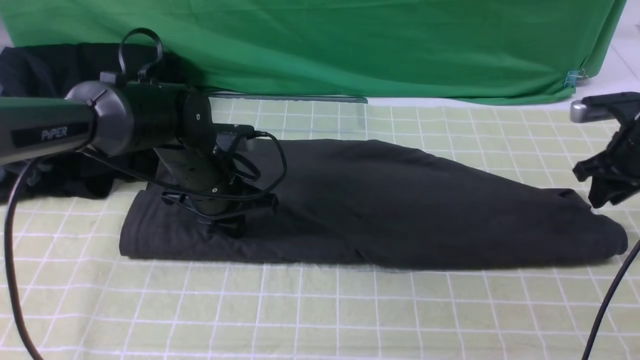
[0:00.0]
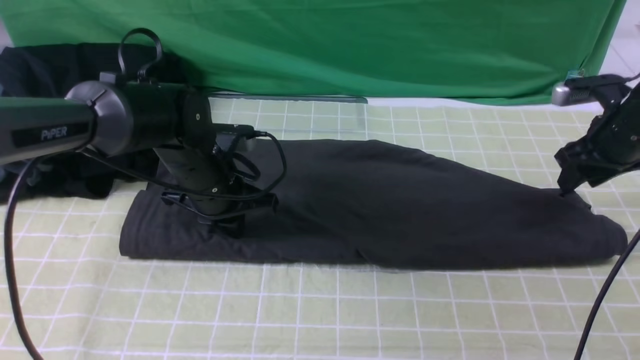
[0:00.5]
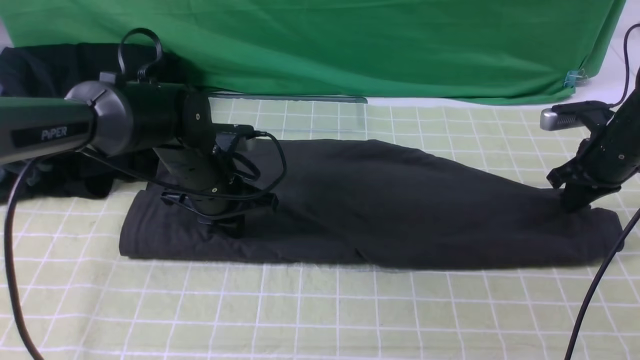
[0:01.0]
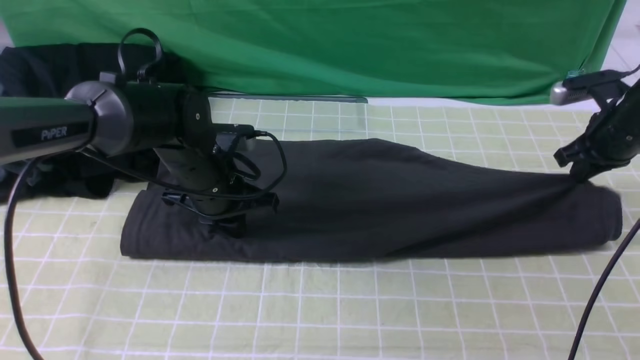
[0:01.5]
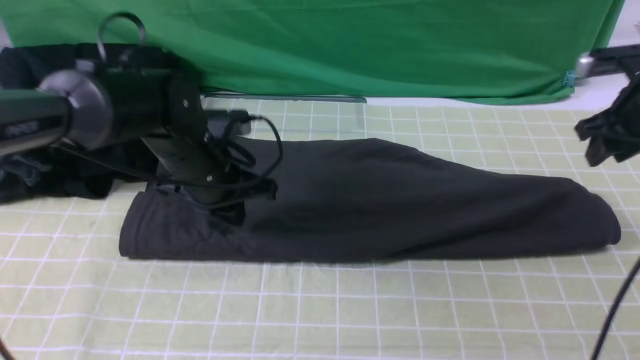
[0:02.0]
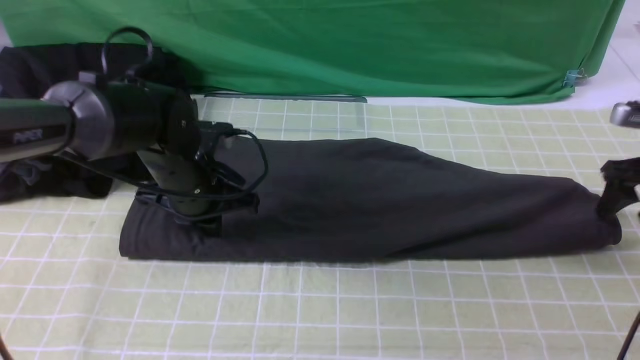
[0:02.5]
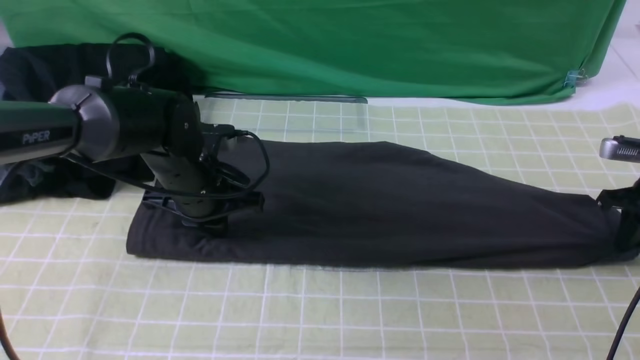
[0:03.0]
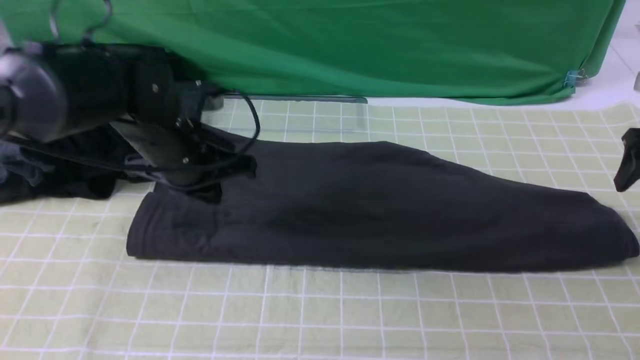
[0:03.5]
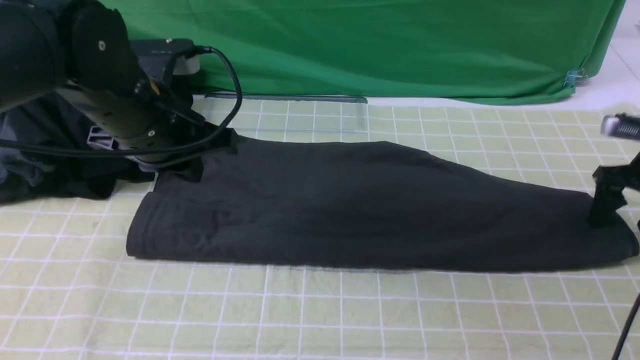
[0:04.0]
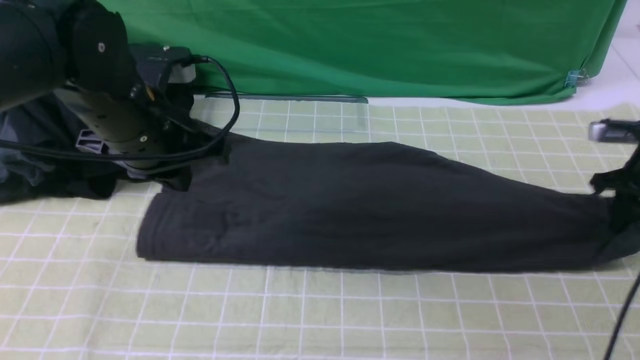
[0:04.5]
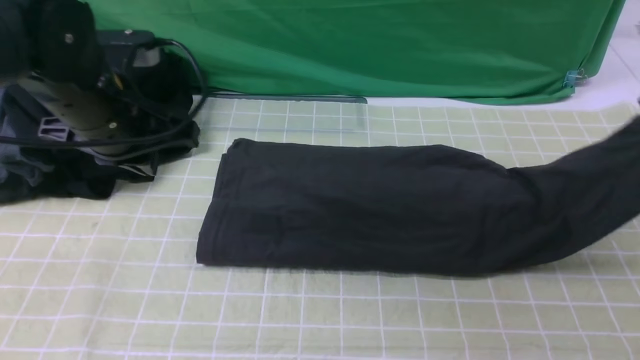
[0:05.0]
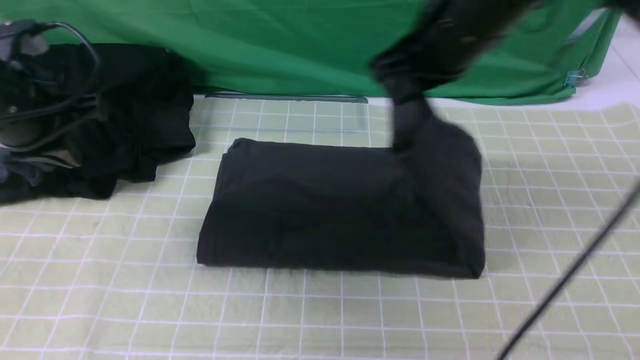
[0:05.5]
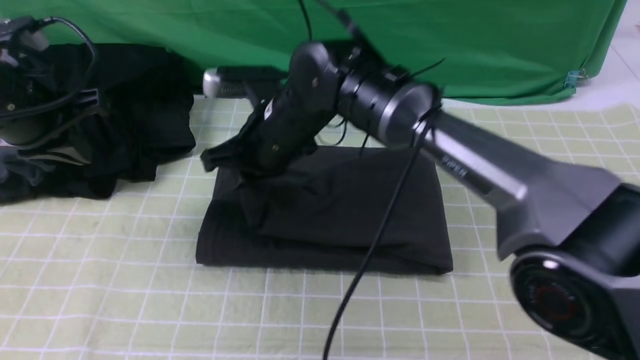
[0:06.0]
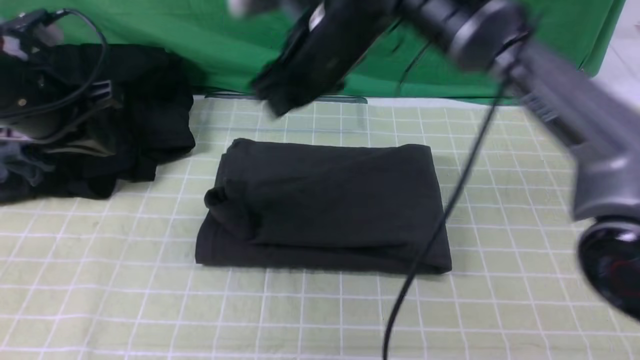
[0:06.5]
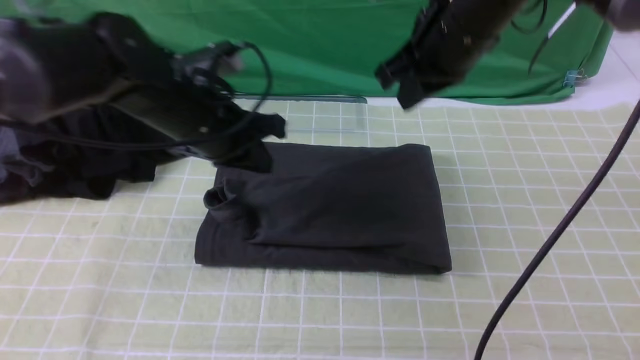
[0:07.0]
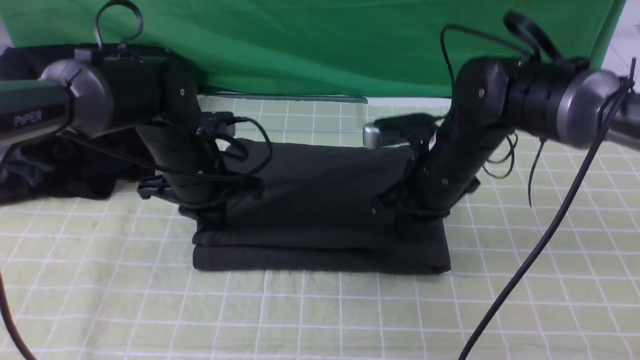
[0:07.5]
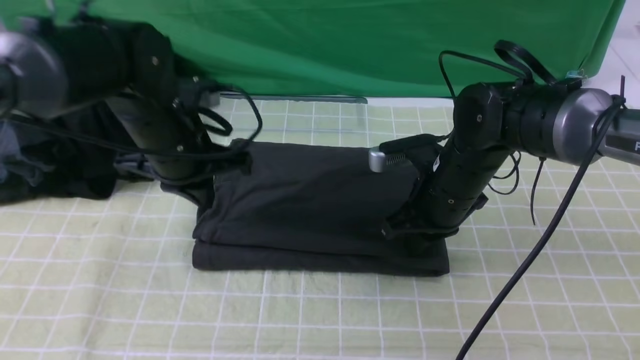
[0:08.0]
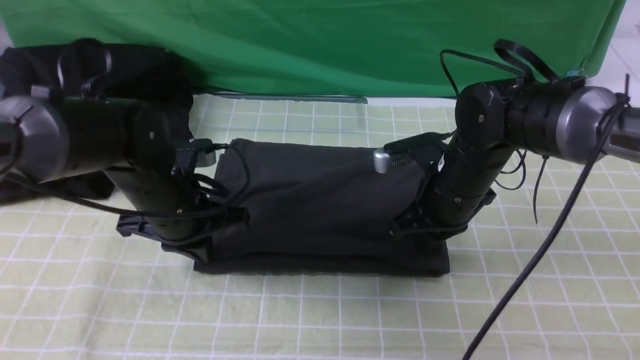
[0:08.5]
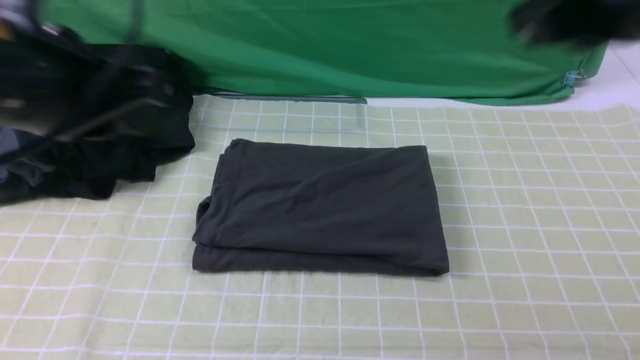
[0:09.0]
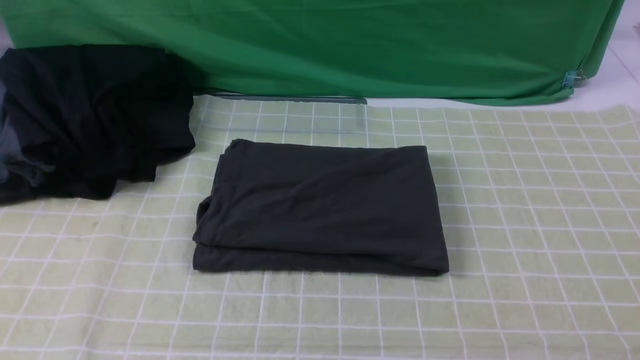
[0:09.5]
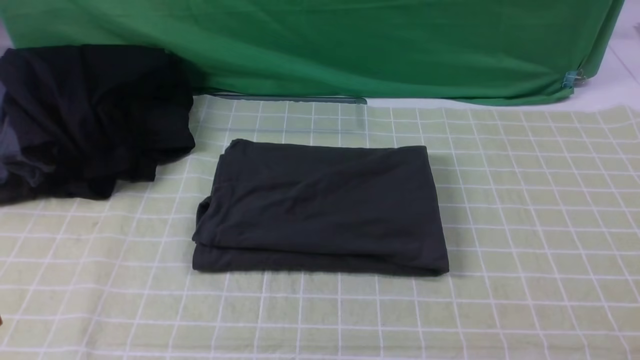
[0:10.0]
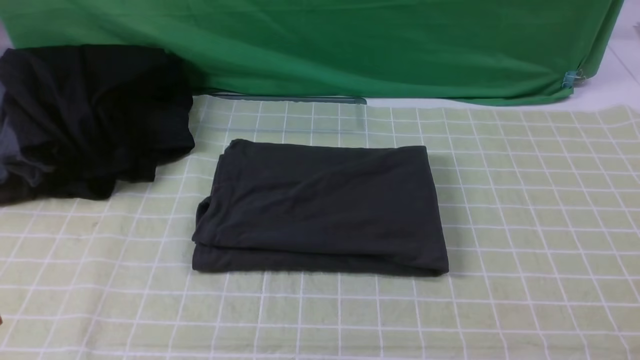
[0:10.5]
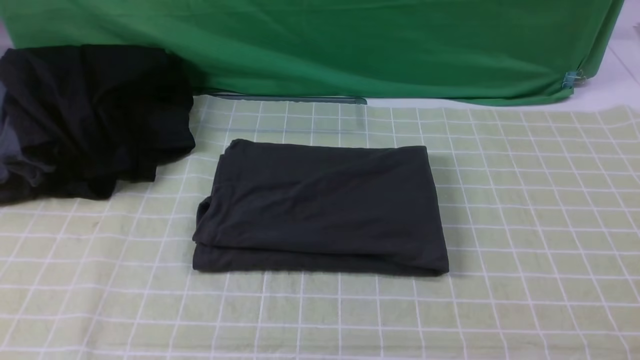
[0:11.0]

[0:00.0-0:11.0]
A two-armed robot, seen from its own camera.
Step, 0:00.0 to 0:04.0: use the right arm to clamp the right edge of the fabric.
Step, 0:04.5 to 0:06.0: use the right arm to drag the right edge of the fabric to the left and folds it over the left edge.
0:00.0 to 0:02.0: The grippers make only small movements.
0:02.0 to 0:03.5: The right gripper opens.
0:03.5 to 0:05.5: The right gripper shifts roughly 30 cm to the left, and closes. The left gripper is displaced to the left and upward by some 15 cm.
0:05.5 to 0:07.5: The right gripper goes approximately 15 cm downward, goes to the left and returns, roughly 15 cm each way, and opens, then closes again, while the left gripper goes approximately 15 cm to the right and downward.
0:07.5 to 0:09.0: Both grippers travel together upward and backward, approximately 30 cm.
0:09.0 to 0:11.0: The left gripper shifts approximately 20 cm backward and downward. Meanwhile the right gripper goes some 25 cm backward, to the right and downward.

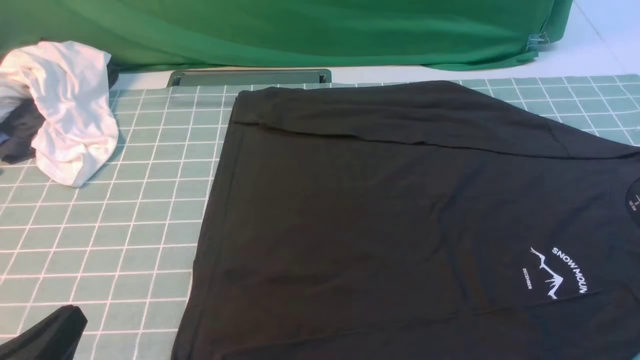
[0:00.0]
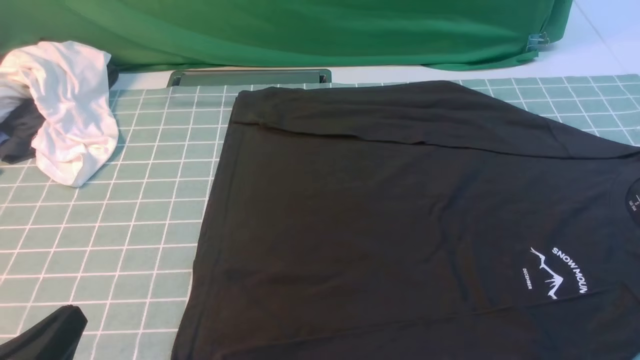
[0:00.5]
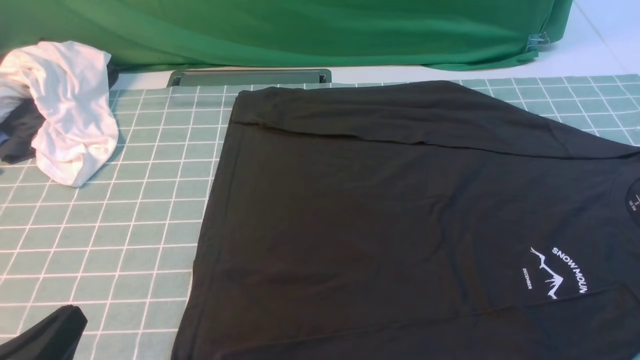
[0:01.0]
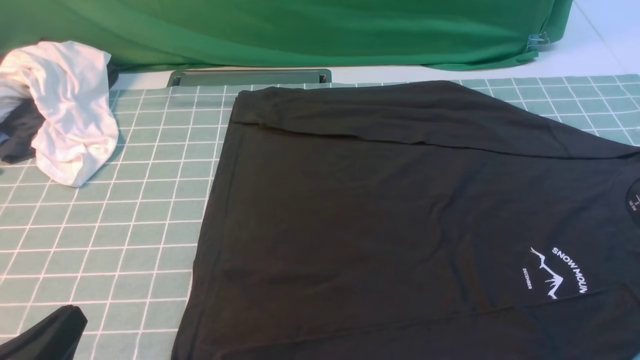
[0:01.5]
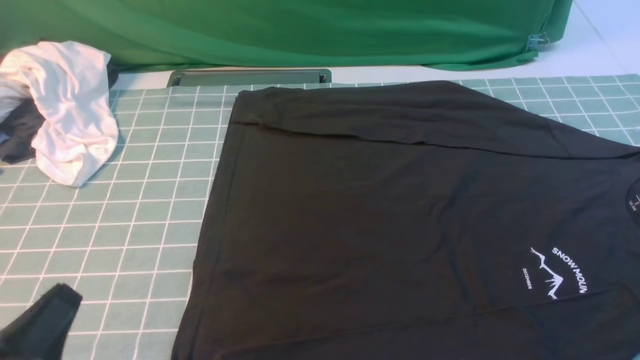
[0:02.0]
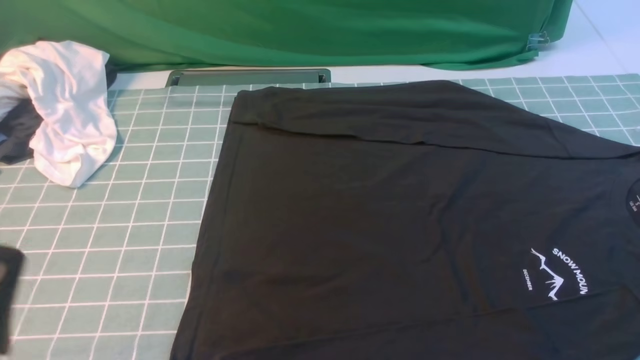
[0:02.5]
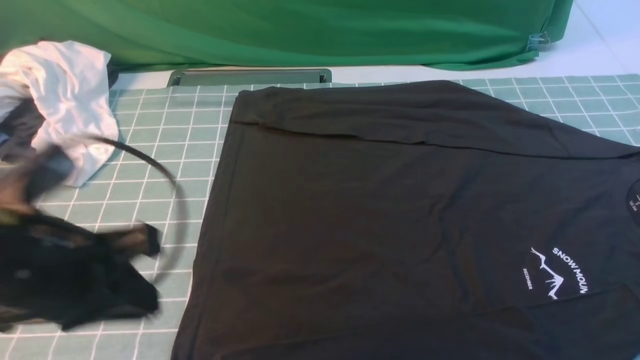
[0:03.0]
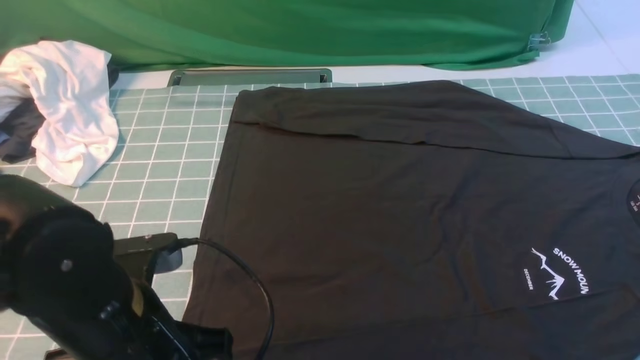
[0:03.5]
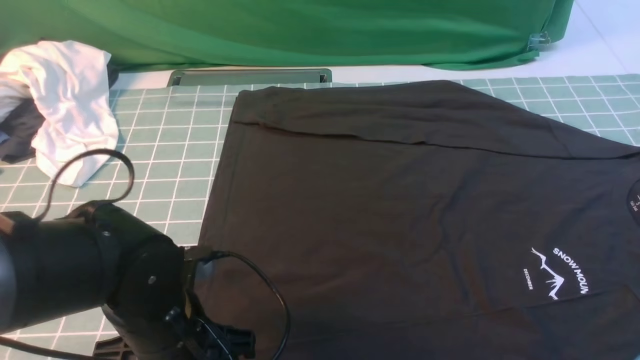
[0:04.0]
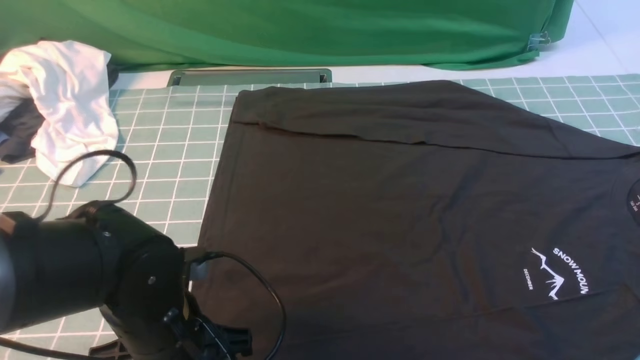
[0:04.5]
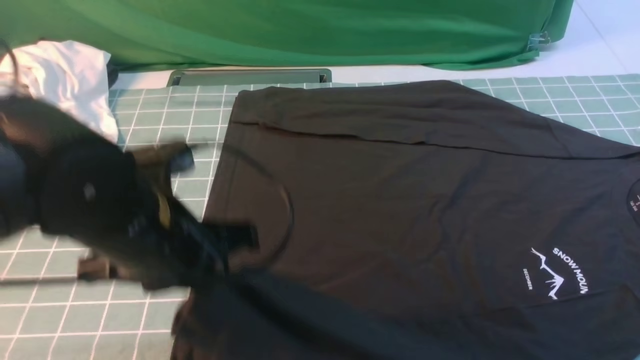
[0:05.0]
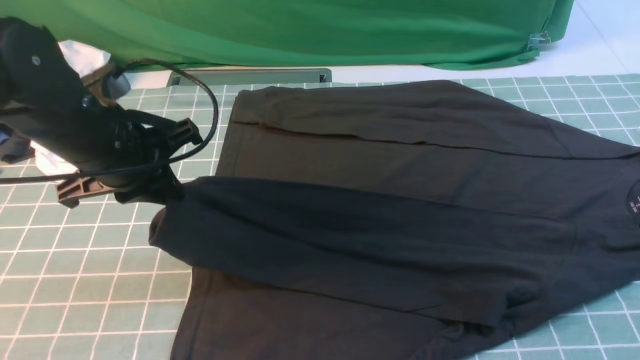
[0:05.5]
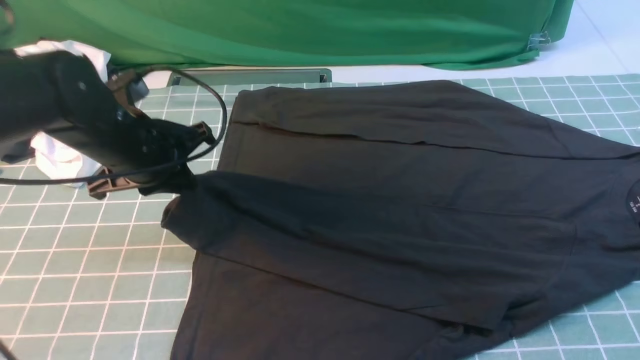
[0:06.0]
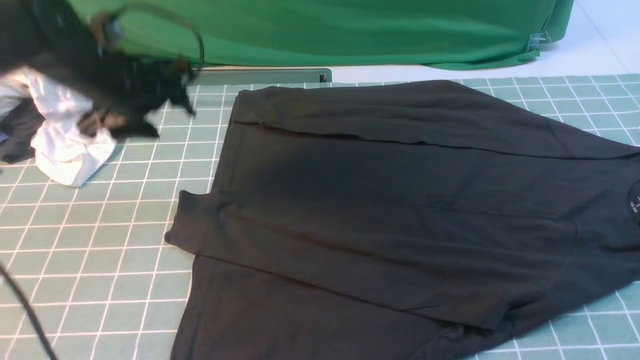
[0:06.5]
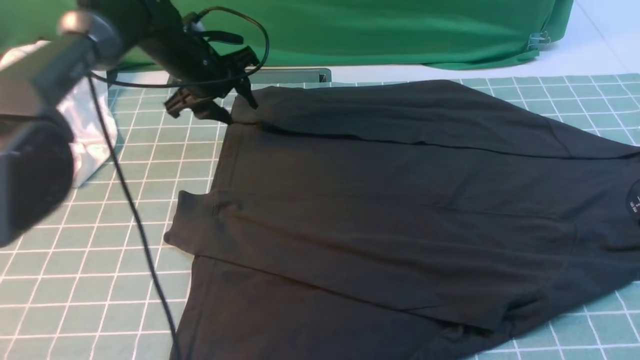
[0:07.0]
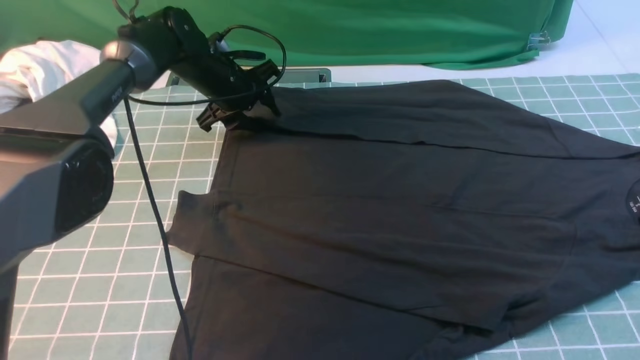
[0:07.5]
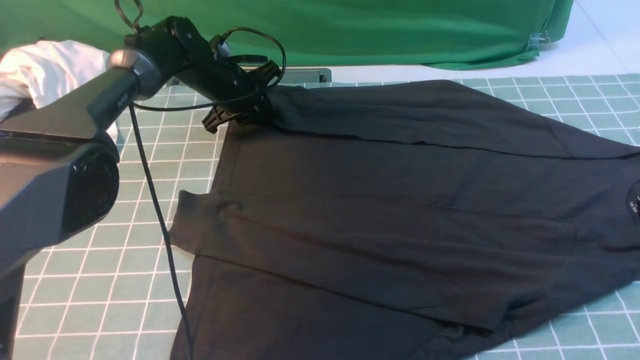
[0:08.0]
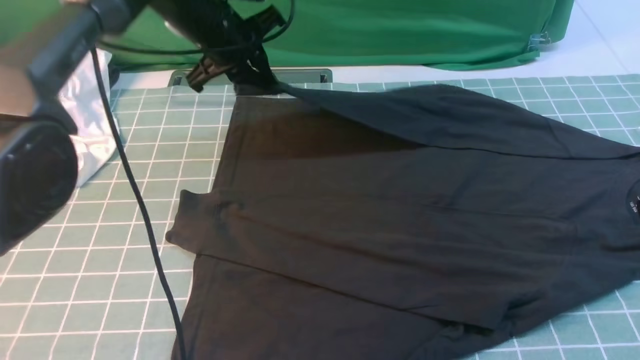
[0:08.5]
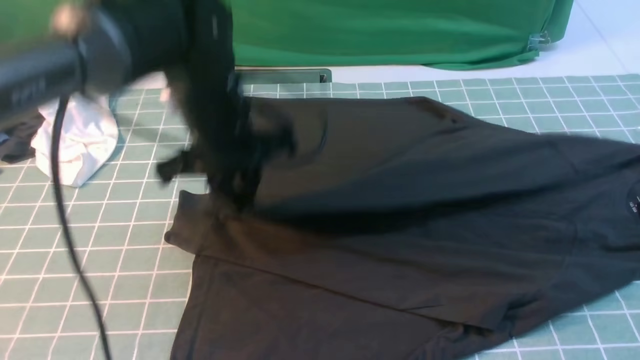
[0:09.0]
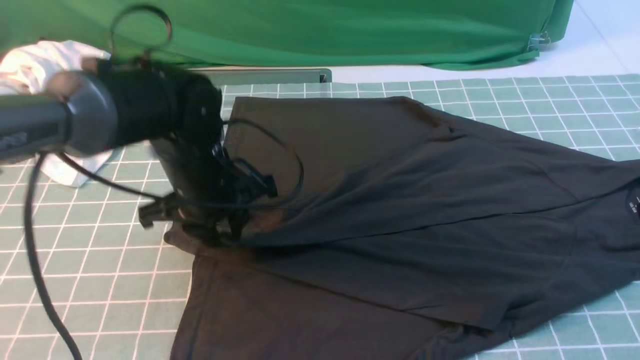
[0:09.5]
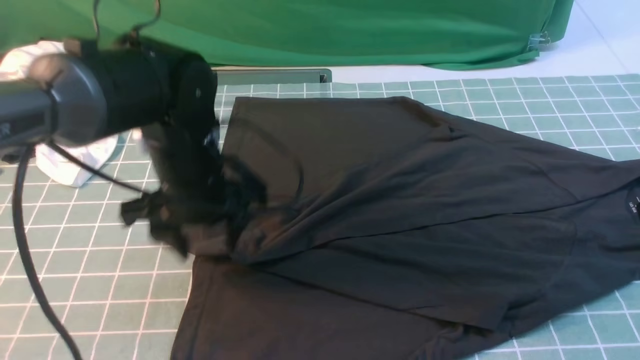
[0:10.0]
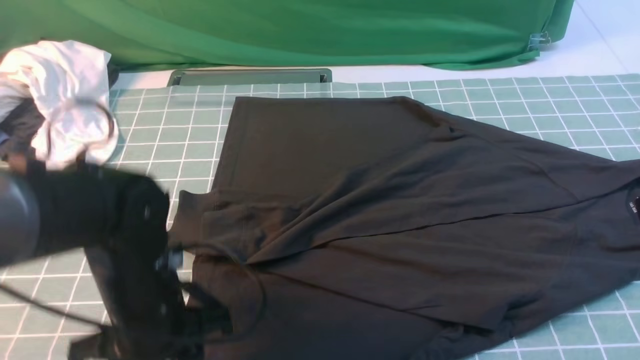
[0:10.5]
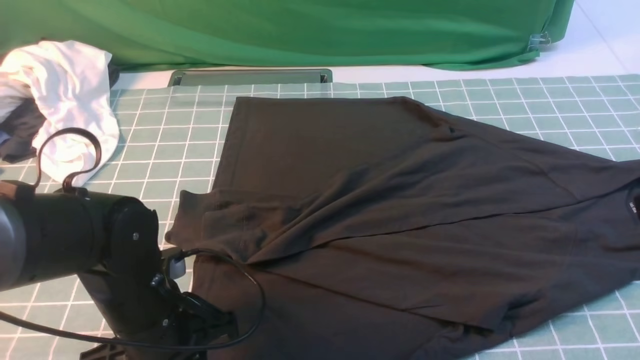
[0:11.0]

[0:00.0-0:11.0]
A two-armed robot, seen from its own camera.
Step, 0:00.0 to 0:04.5: use the left arm to clamp the cuff closest to it.
Step, 0:05.0 to 0:06.0: use the left arm to drag and place the cuff at the centered position on the left edge of the fabric.
Step, 0:06.5 to 0:08.0: use the left arm to clamp the cuff farthest from it.
Step, 0:08.5 to 0:09.5: use the left arm to drag and drop the cuff onto the cuff closest to the left arm.
0:02.0 to 0:03.5: The left gripper moves forward and to the right, some 15 cm, and opens its fingers.
0:03.5 to 0:05.5: The left gripper goes about 15 cm forward, and closes up.
0:05.5 to 0:07.5: The left gripper is displaced forward and downward by approximately 25 cm, and opens up.
0:07.5 to 0:09.0: The left gripper shifts roughly 20 cm backward and upward, and closes.
0:09.0 to 0:11.0: The left gripper moves backward and downward, about 20 cm, and opens and closes again.
